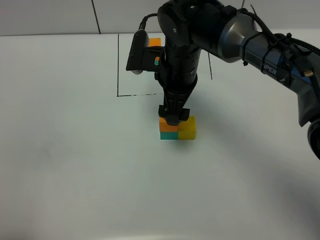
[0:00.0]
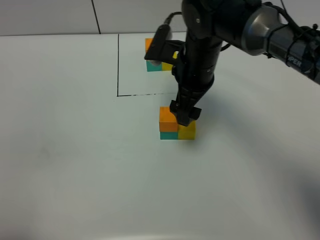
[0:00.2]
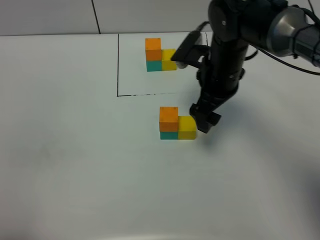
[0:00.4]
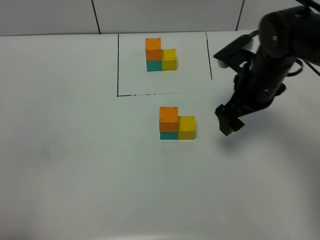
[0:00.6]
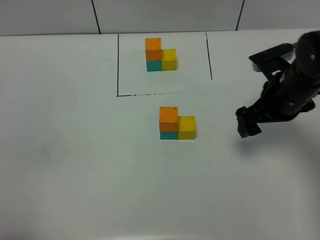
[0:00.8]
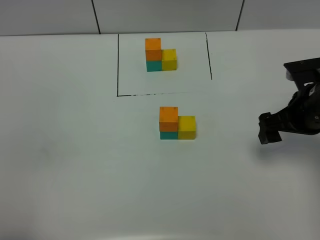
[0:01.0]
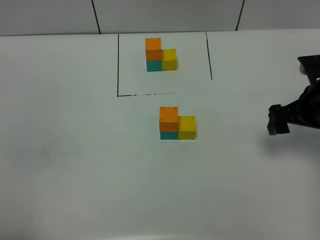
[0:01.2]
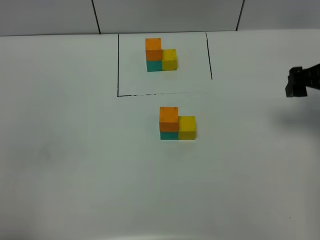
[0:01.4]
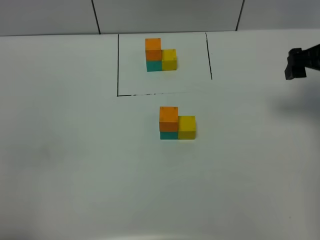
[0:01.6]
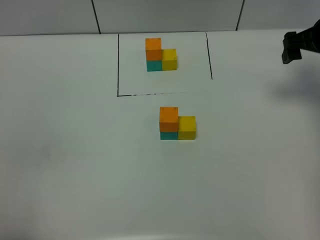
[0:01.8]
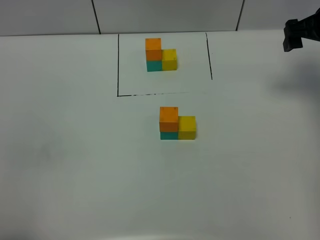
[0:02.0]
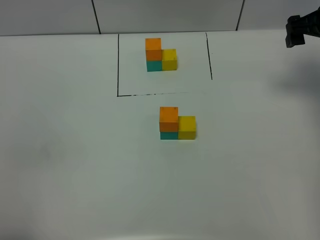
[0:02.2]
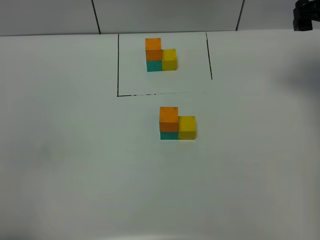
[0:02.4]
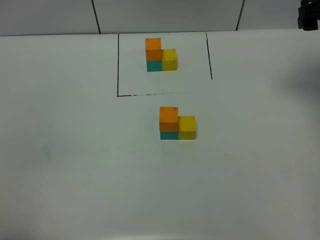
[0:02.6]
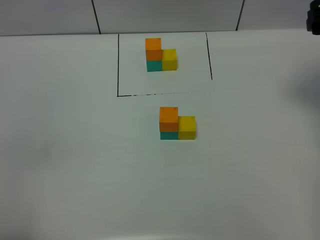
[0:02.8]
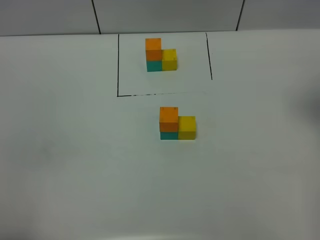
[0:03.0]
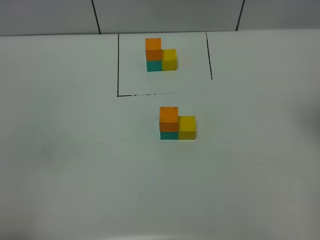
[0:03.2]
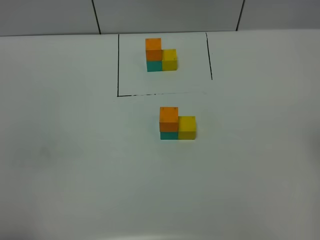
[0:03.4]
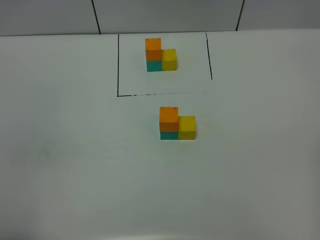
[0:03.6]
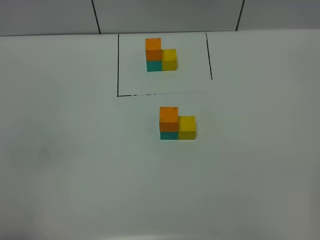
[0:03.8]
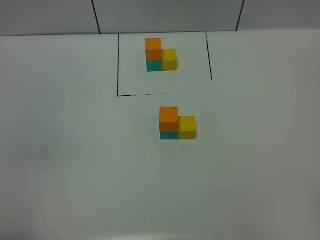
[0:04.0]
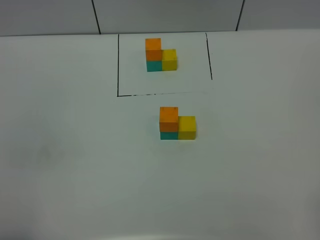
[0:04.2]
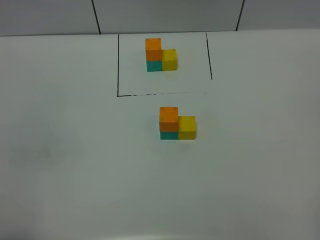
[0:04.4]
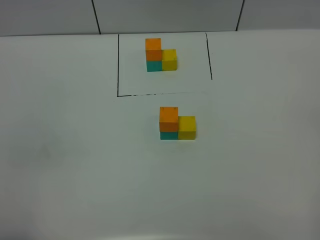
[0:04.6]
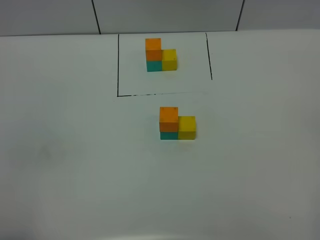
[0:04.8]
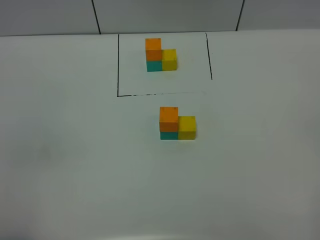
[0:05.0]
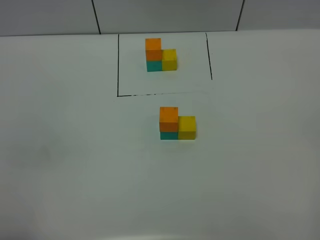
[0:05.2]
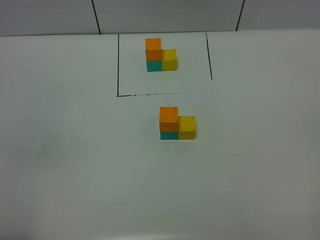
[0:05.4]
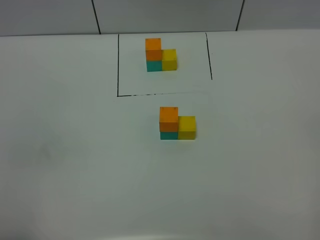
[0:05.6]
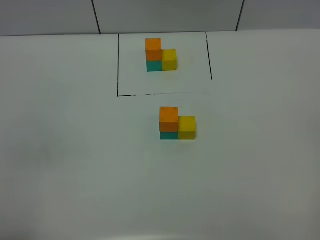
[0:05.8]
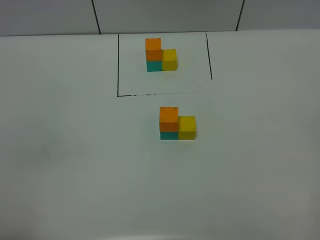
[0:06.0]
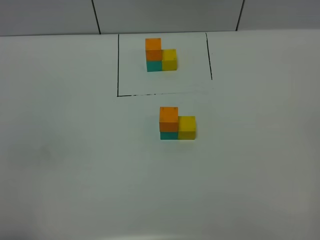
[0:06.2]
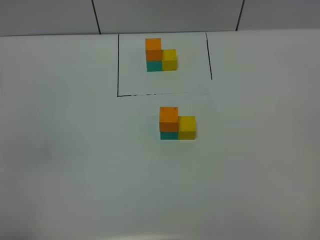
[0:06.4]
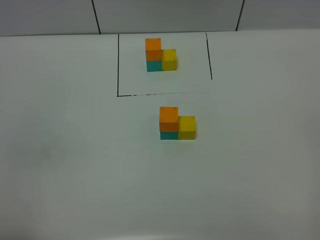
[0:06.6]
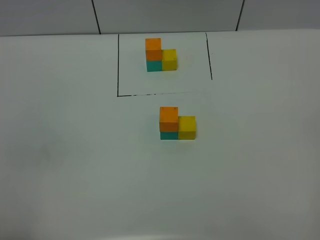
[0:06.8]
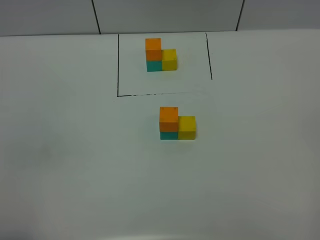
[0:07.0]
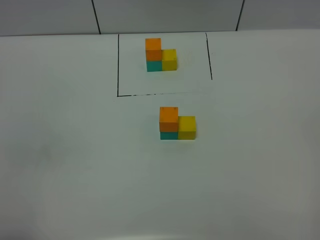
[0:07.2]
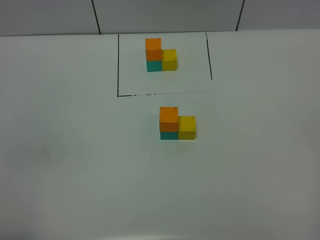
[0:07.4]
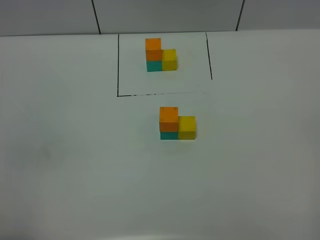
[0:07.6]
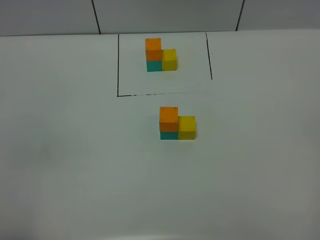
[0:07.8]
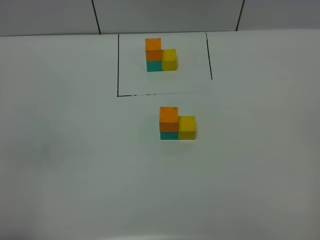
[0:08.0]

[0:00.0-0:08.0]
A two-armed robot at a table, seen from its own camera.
Task of the whole recording: According to the building block template in front, assemble the scattered blocks together.
0:00.0 to 0:01.6: The right gripper travels to the right by some 25 cm.
0:01.6 to 0:03.2: The right gripper is displaced backward and upward by roughly 15 cm.
0:04.8 to 0:08.0: Both grippers stay about where they are.
